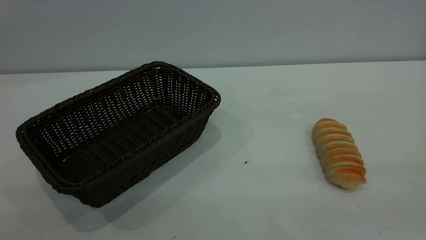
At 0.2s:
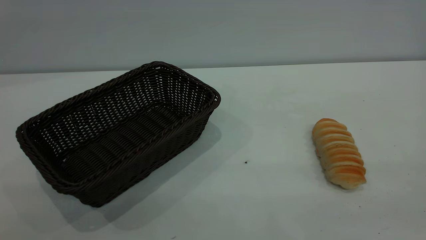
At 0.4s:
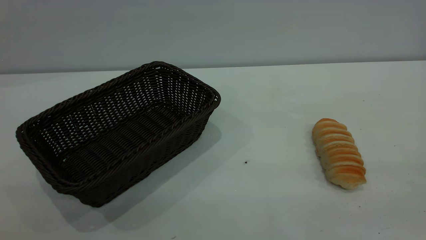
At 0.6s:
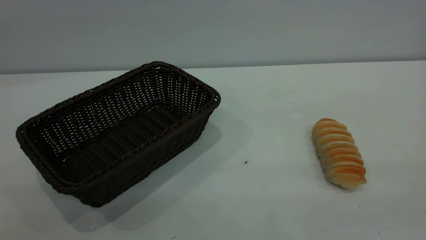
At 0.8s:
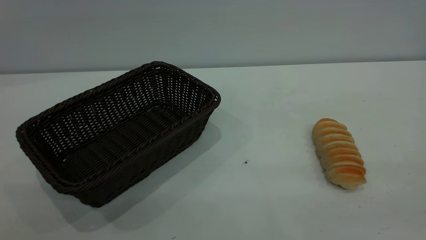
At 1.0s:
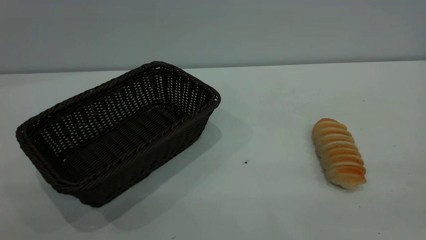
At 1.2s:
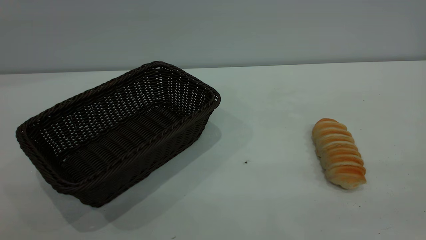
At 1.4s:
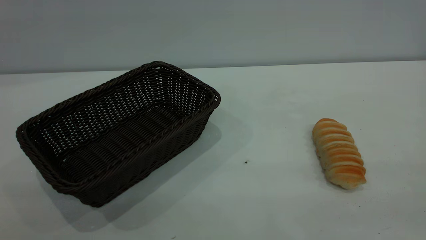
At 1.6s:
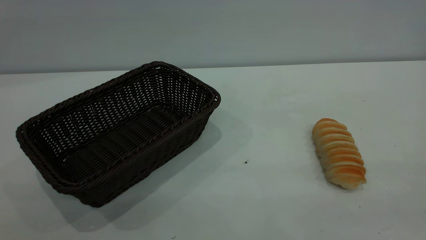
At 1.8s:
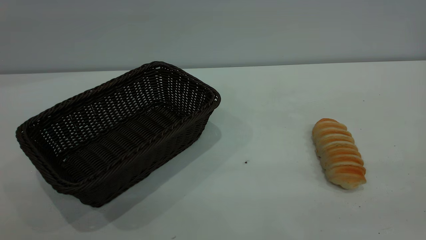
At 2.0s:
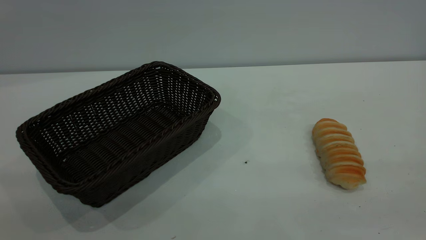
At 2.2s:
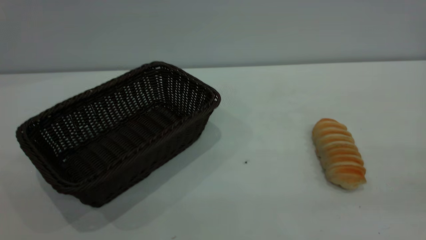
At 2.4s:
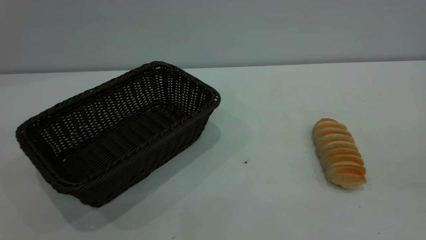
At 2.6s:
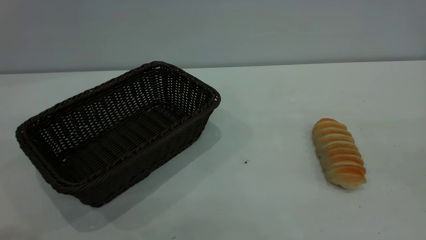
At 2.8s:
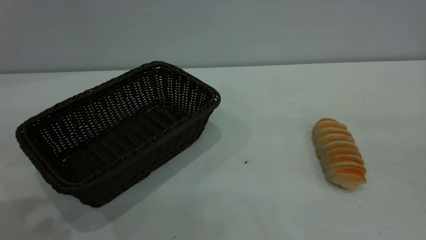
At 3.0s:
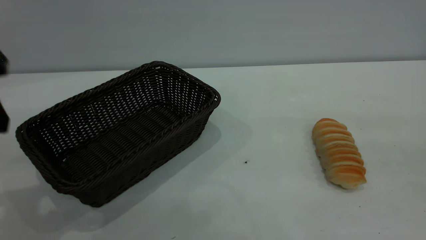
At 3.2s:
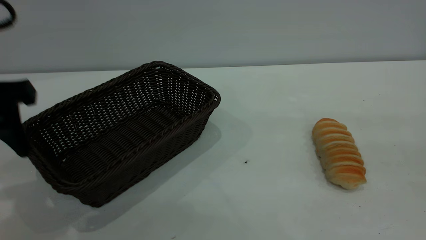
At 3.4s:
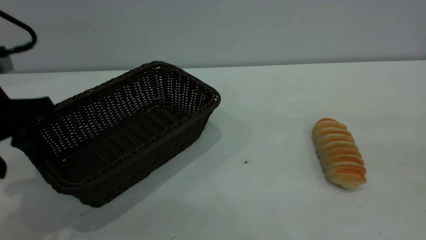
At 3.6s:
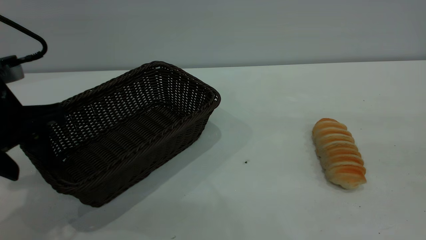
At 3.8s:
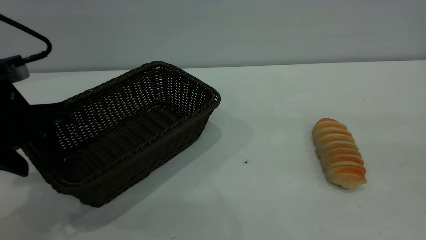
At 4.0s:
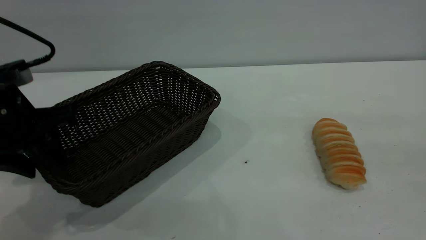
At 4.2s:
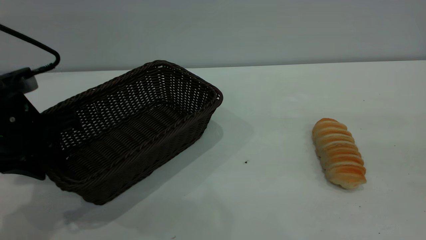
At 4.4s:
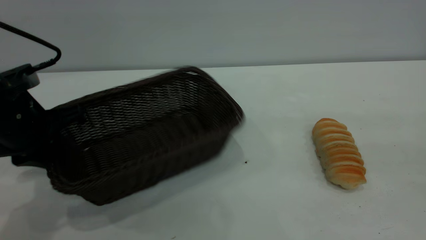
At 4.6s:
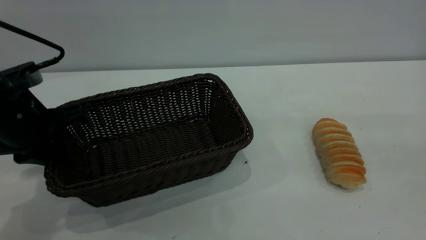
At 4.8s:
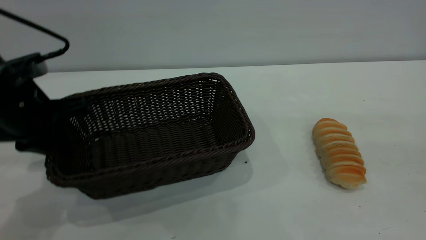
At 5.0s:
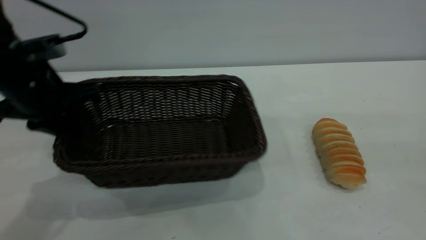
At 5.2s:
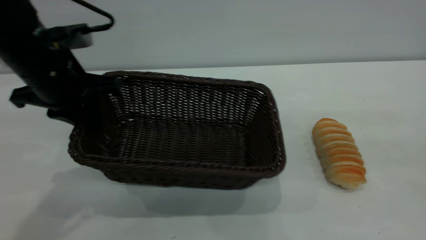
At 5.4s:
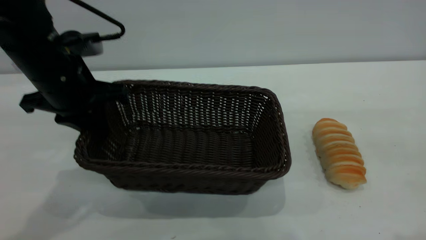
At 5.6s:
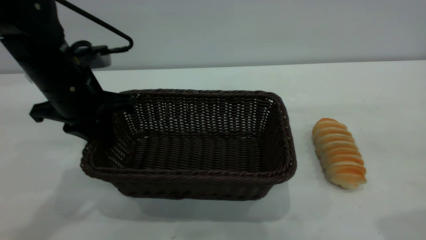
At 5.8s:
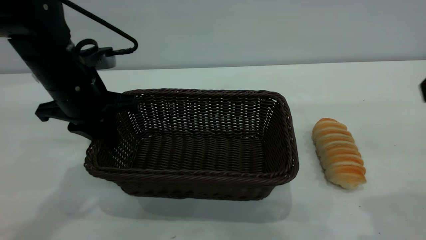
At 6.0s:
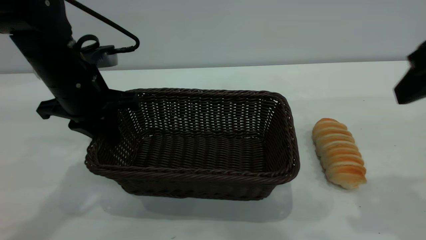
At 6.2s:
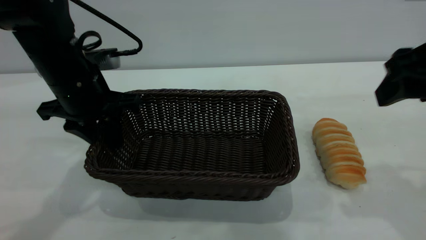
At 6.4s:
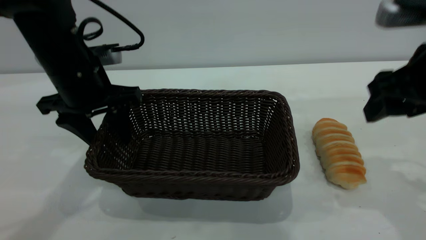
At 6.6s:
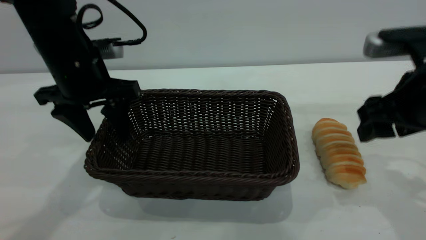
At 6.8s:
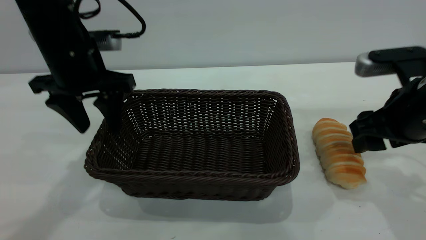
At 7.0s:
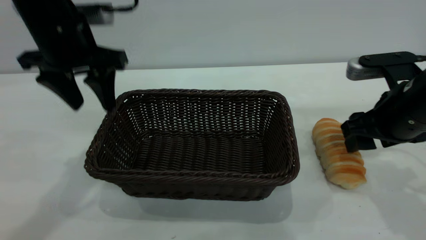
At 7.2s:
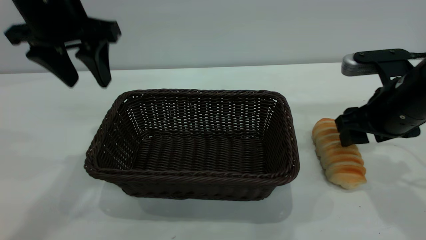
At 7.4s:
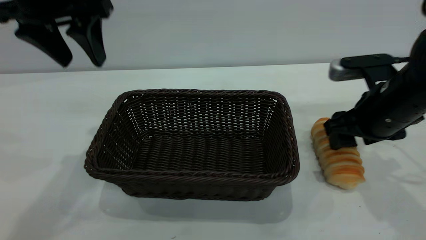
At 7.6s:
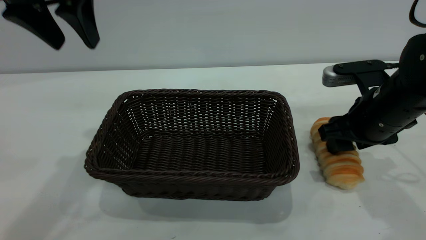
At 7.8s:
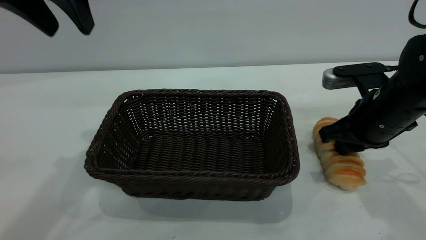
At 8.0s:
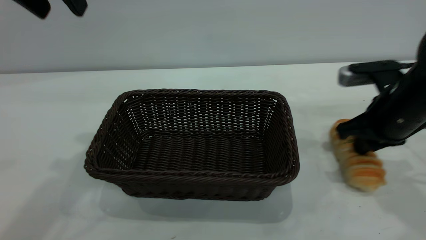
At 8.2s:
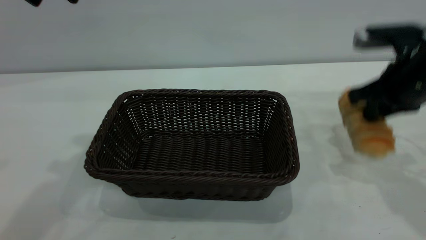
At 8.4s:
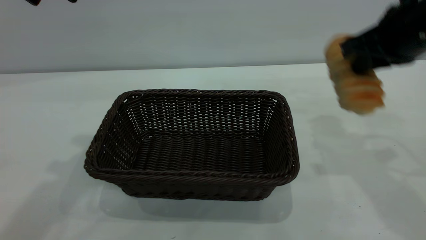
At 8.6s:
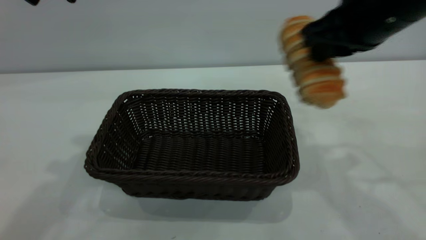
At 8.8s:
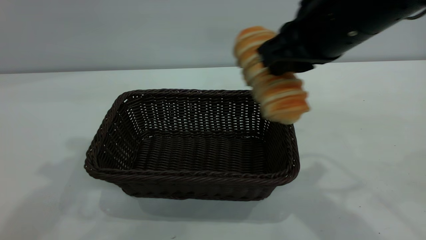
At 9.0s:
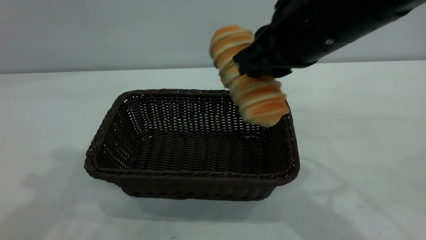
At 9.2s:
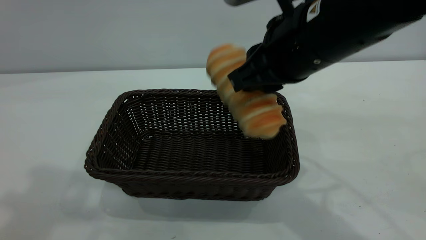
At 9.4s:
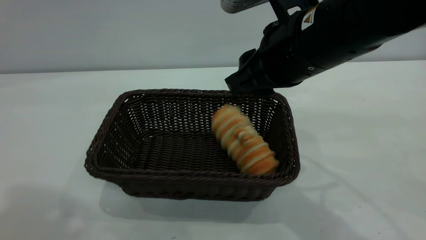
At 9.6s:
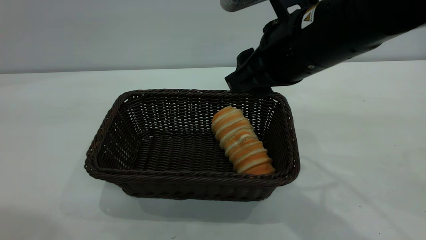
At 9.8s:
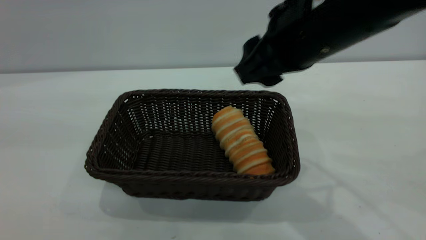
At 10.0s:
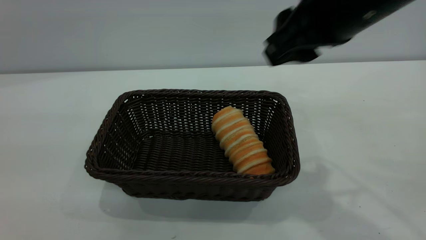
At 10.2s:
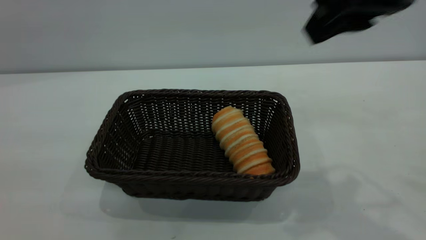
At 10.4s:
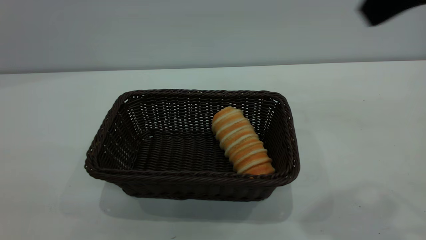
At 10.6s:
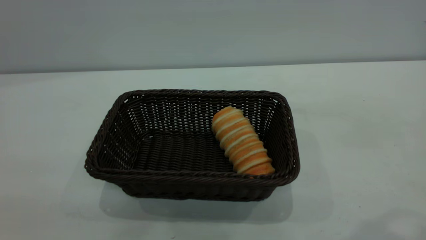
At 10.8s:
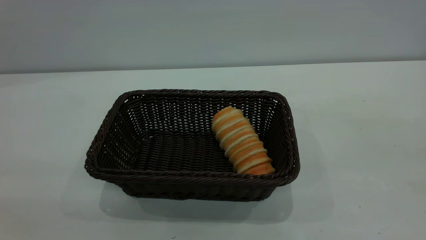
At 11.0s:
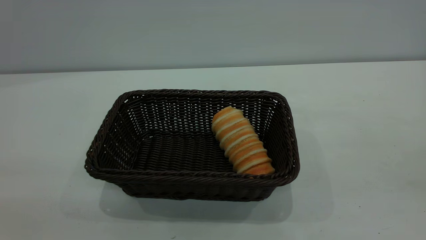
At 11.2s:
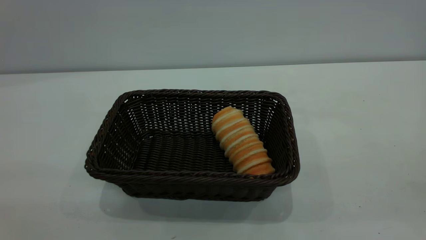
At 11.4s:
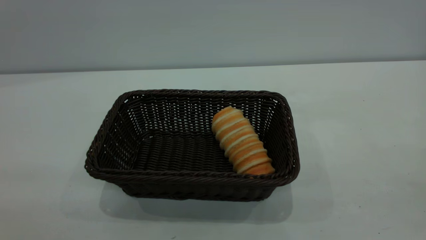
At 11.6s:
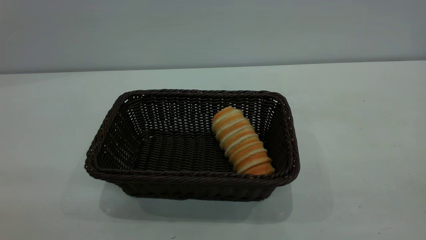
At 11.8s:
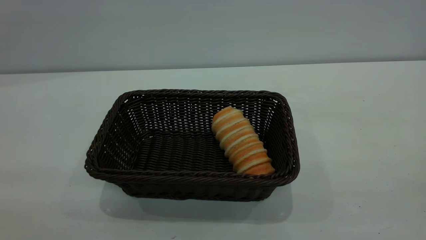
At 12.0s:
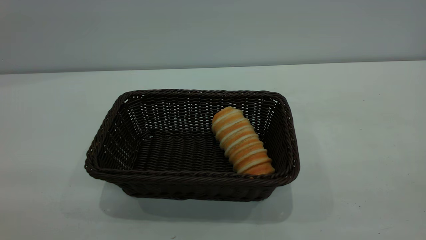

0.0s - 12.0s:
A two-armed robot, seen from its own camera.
Task of the whole recording: One hand grasps the black basket and places it in the middle of the table, while the other hand picks up the long bread and puts it into the black basket.
Step, 0.0s - 7.2s: Move the basket to the center of view.
Step, 8.4s - 10.0s: place the bread into the basket.
3.0s - 4.4s: The left gripper moves downward and forward, about 10 cm, and closes up.
4.4s - 6.0s: The left gripper is displaced forward and to the right by some 10 cm, while the right gripper goes roughly 15 cm forward and downward.
6.0s - 7.6s: The right gripper shifts roughly 20 cm downward and forward. Meanwhile the left gripper travels upward by approximately 15 cm, and opens its fingers.
7.6s - 9.0s: The right gripper moves upward and to the left, some 20 cm, and closes. Meanwhile the left gripper travels upward and backward by approximately 10 cm.
9.0s - 10.4s: The right gripper goes roughly 15 cm upward, to the right and backward; the left gripper goes about 25 cm backward.
10.4s - 12.0s: The right gripper goes approximately 25 cm backward and to the right.

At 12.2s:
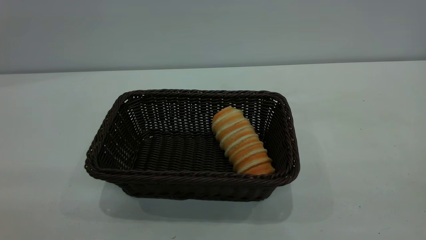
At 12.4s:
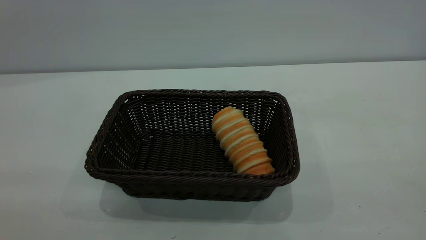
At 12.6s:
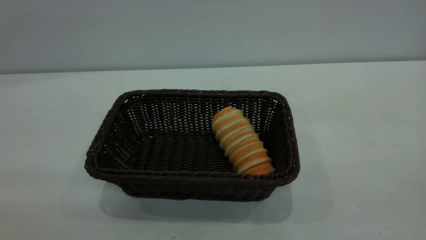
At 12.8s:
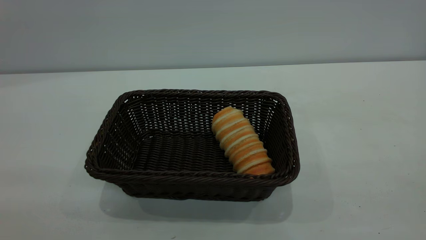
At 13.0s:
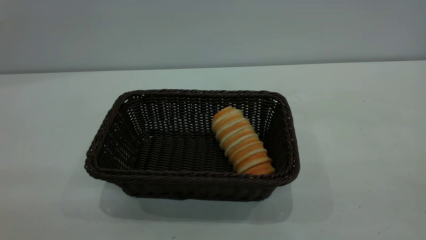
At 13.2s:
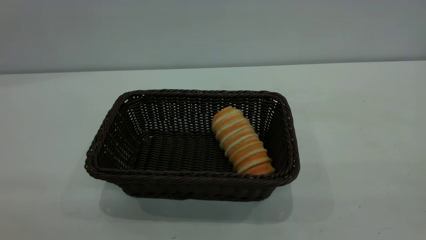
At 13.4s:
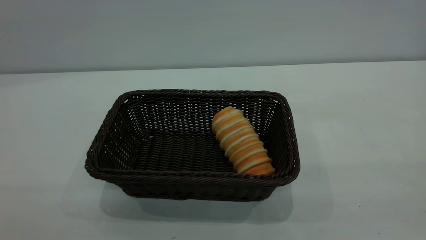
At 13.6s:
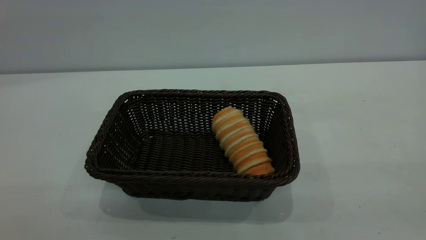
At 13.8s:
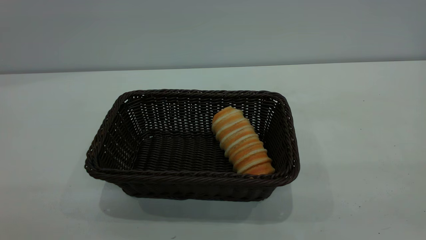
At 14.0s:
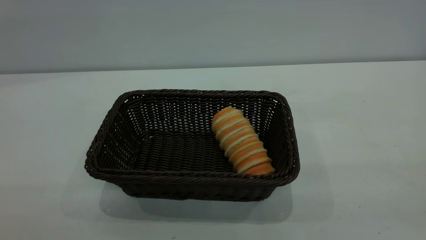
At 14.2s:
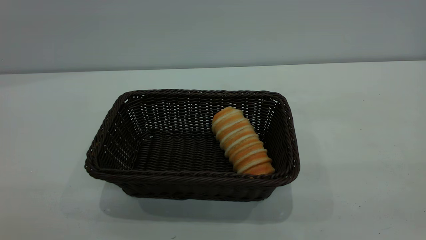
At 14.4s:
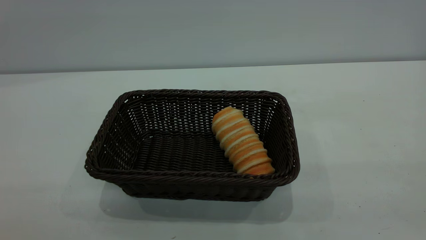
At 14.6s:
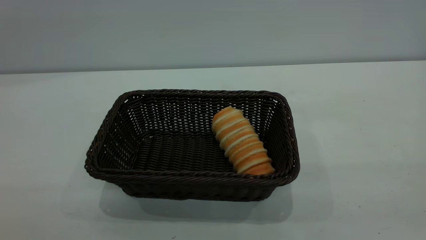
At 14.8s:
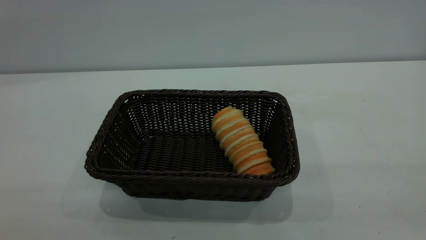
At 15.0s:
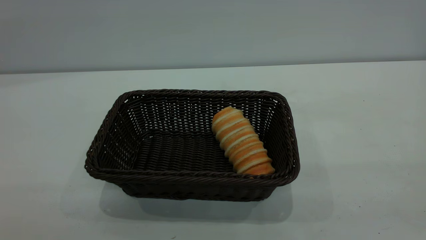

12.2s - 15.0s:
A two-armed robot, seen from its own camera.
Task of the whole recording: One hand grasps the black basket and places it in the middle of the table, while the other hand picks up the long bread and puts it into the black basket.
13.6s - 15.0s: The two grippers keep their place.

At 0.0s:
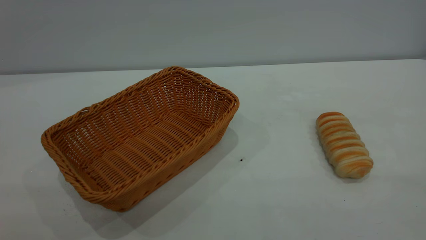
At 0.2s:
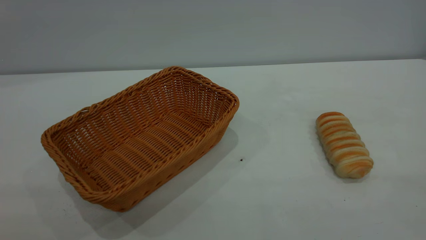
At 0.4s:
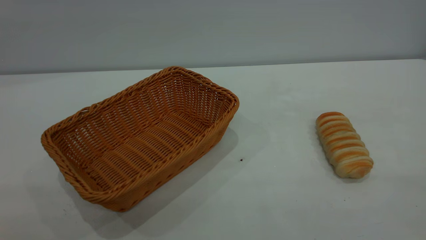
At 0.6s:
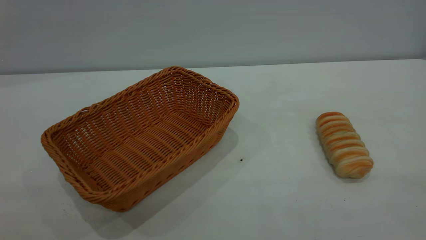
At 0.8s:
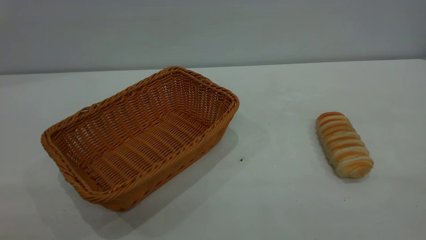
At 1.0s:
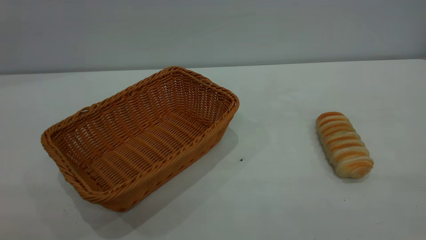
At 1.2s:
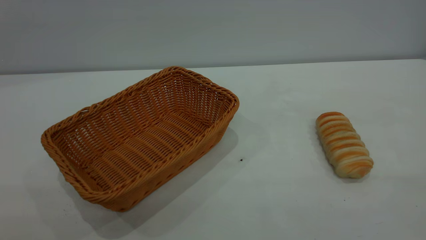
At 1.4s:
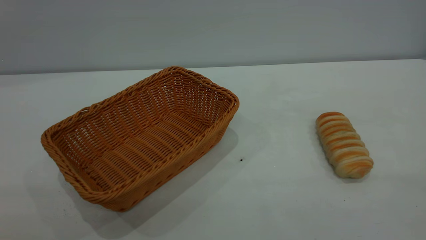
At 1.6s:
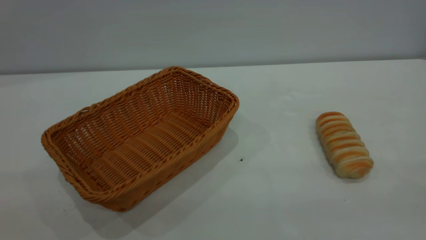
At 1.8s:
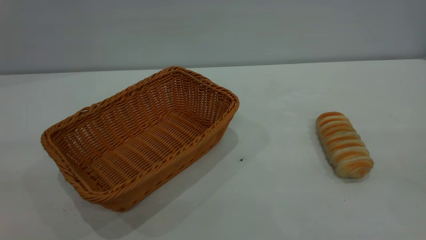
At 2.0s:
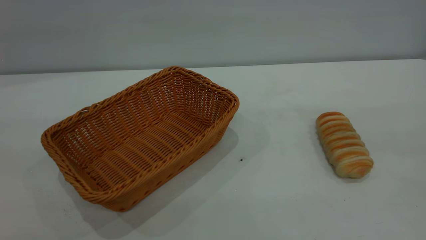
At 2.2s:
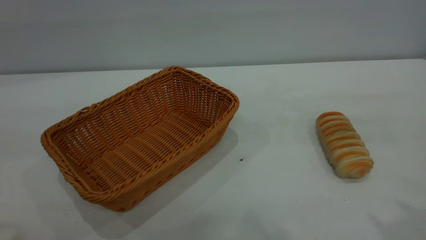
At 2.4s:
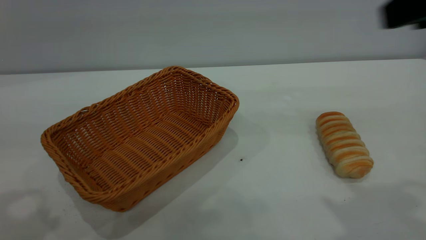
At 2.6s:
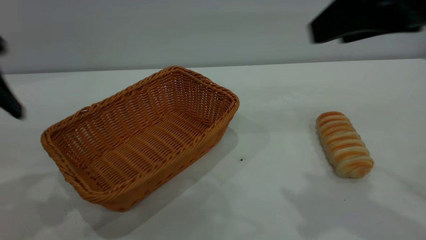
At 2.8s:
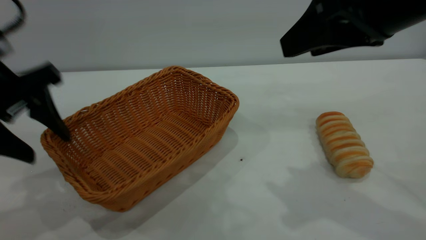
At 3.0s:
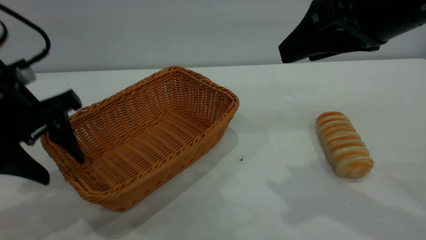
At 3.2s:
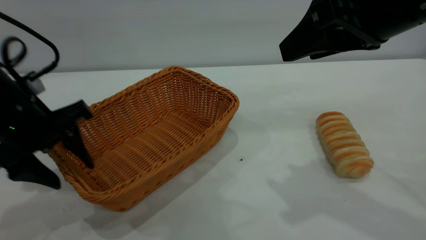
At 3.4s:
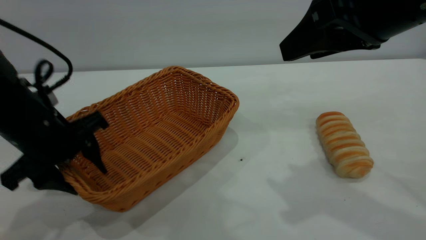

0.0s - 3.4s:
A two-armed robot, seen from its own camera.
Task of the whole recording: One hand grasps the yellow basket and places it in the middle of the table, while the other hand picks up the long bread and puts it into the yellow basket.
1.6s - 3.4s: The right gripper goes approximately 30 cm forward and to the left. The left gripper moves forward and downward, about 40 cm.
